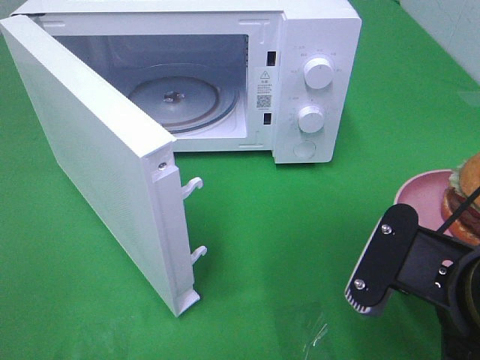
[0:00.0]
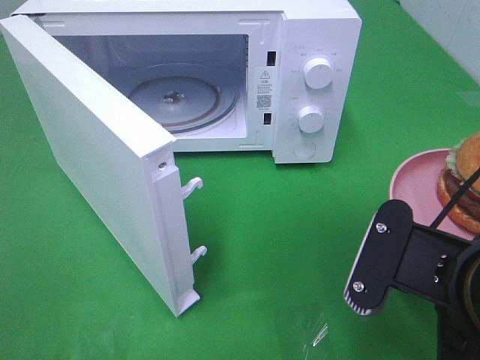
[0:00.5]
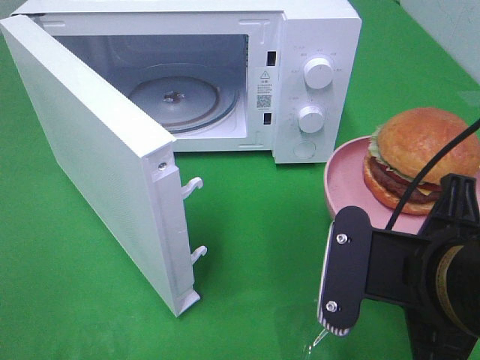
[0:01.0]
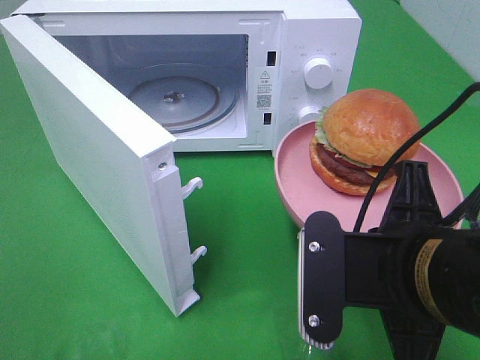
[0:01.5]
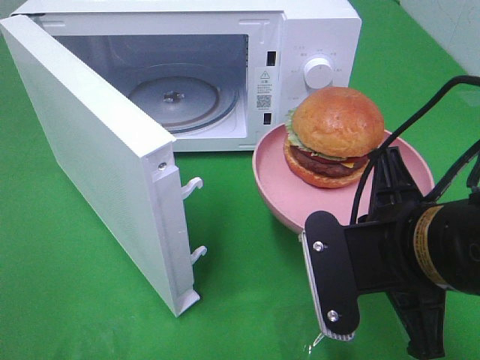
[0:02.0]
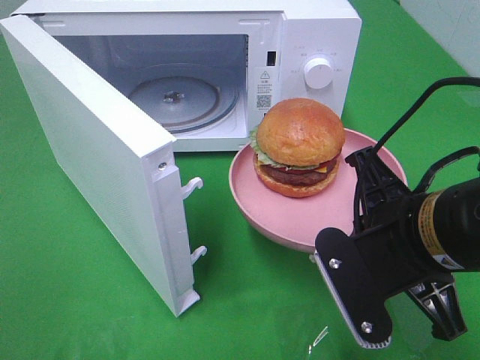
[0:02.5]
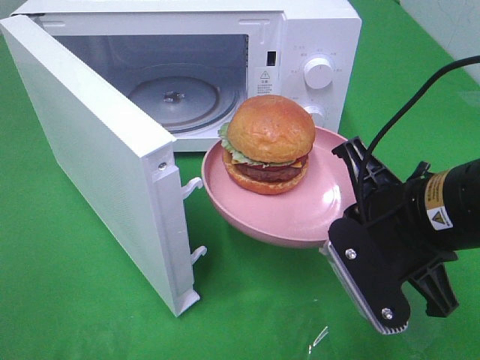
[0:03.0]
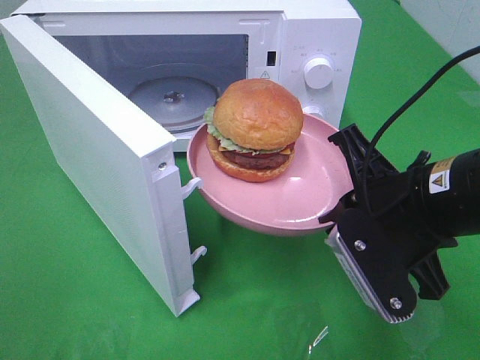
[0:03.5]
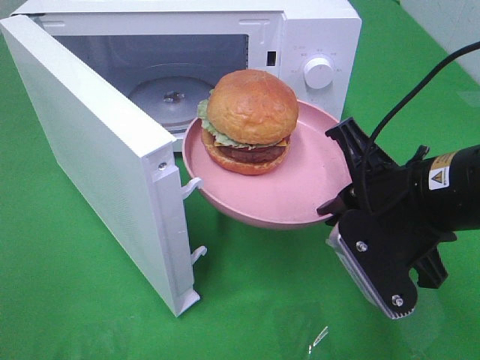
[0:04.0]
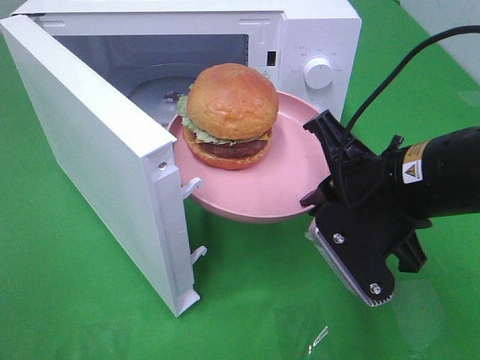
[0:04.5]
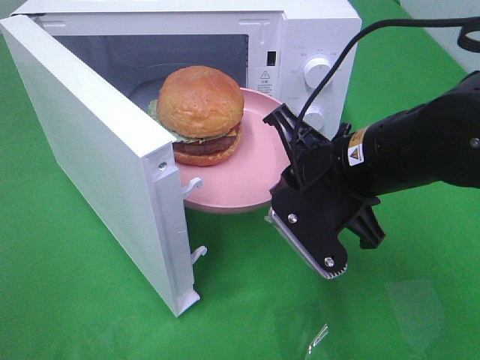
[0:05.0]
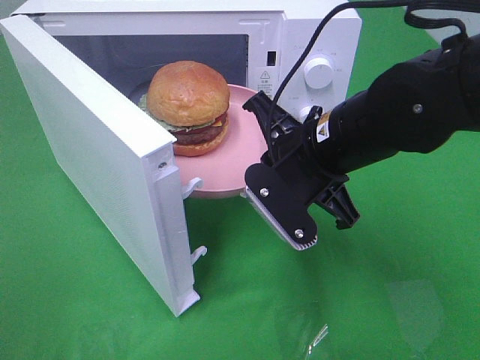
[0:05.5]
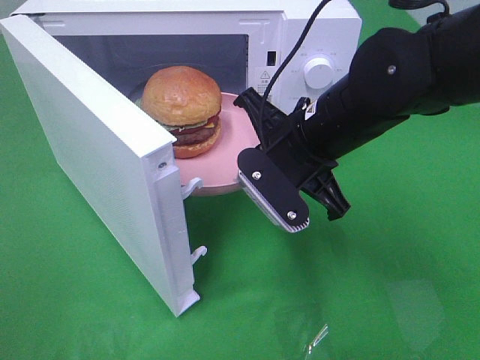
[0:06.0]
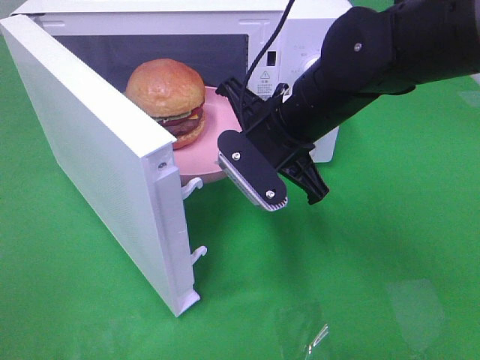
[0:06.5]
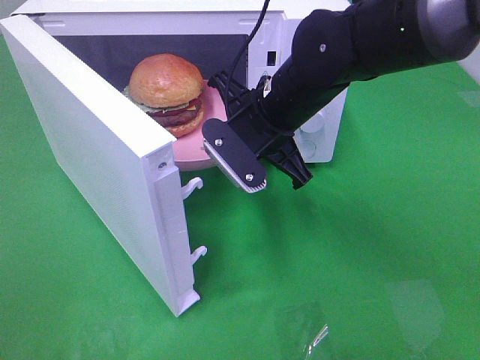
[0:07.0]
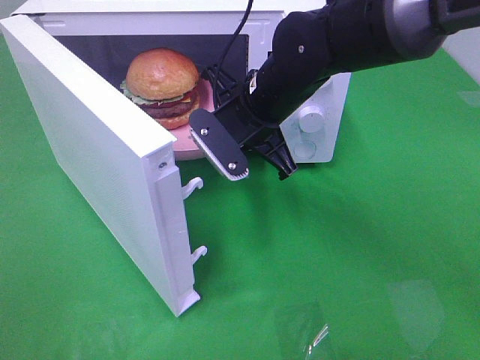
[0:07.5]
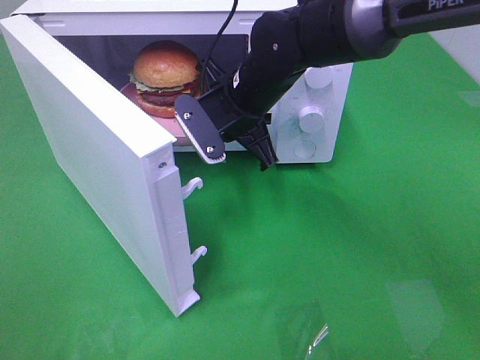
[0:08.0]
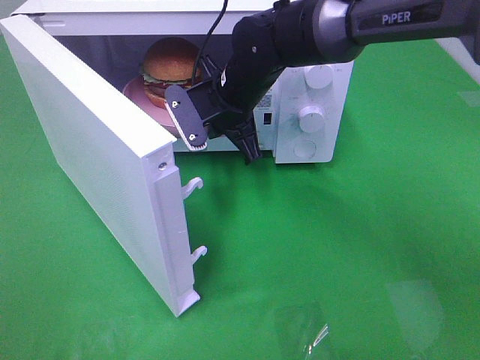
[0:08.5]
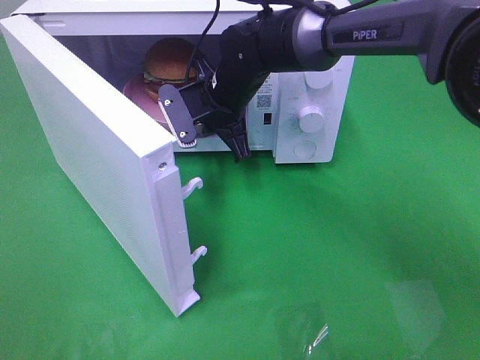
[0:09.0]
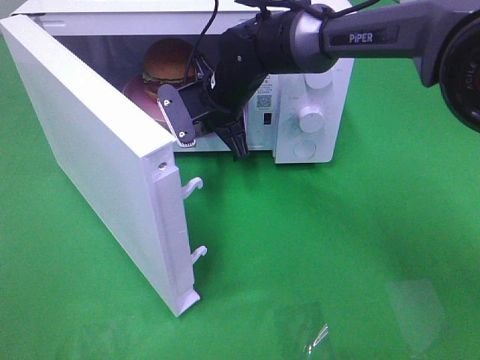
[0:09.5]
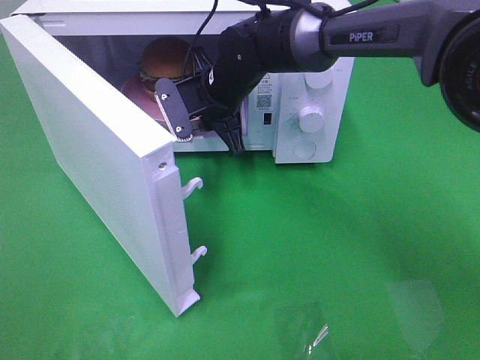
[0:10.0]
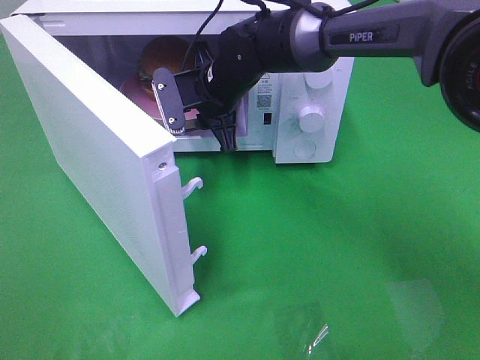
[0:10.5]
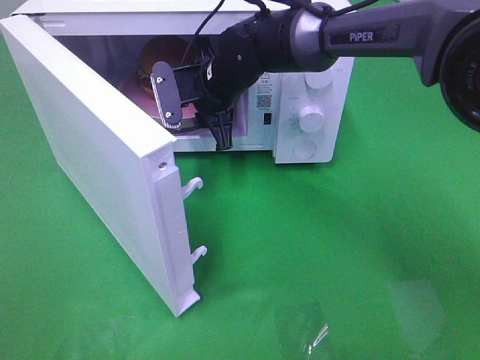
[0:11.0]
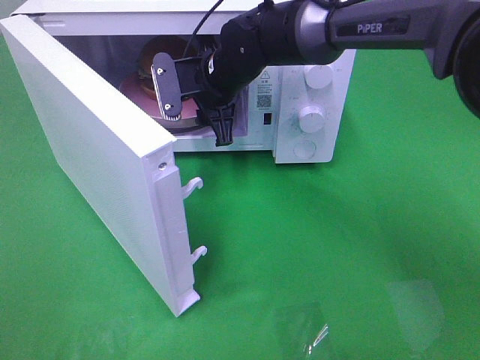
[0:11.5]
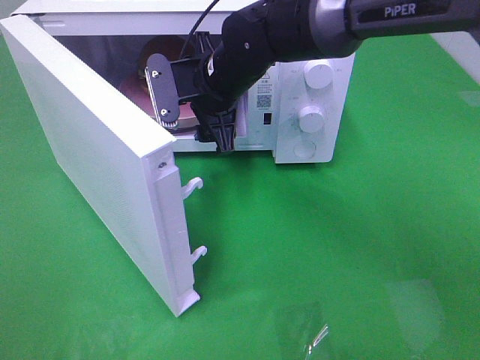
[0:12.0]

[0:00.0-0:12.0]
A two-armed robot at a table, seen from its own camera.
Task of the whole recording: Heat the burger.
Step, 0:00.0 to 0:10.5: Right hand: place the plate in the microwave.
0:02.0 to 0:04.0: The right gripper moves forward, about 5 cm.
0:04.0 to 0:06.0: The right gripper moves forward and to the left, some 10 cm.
0:06.0 to 0:08.0: The right gripper goes approximately 10 cm forward and to the left.
0:08.0 to 0:10.0: The right gripper ends up roughly 5 cm from where it was.
0:10.0 to 0:12.0: The right gripper opens.

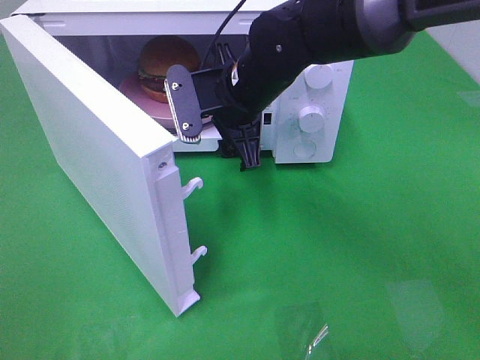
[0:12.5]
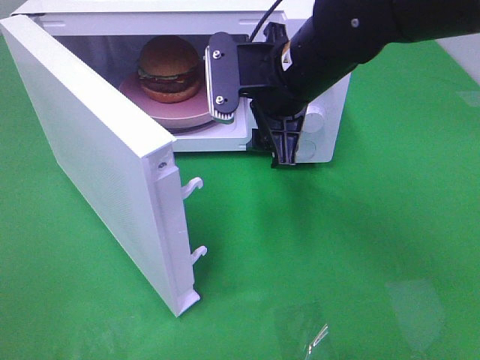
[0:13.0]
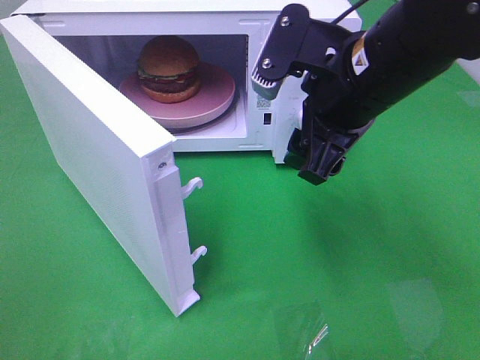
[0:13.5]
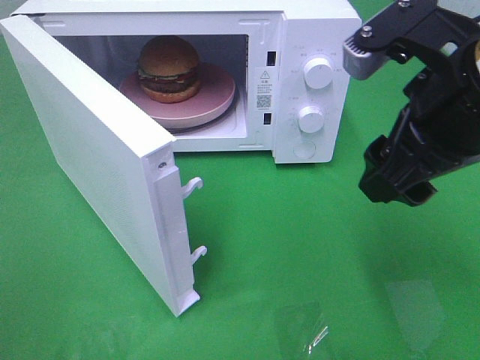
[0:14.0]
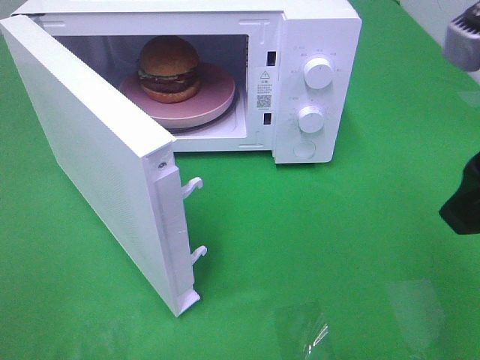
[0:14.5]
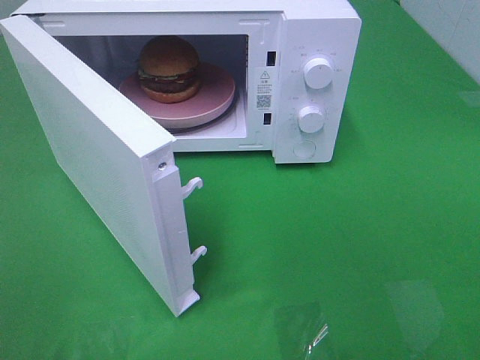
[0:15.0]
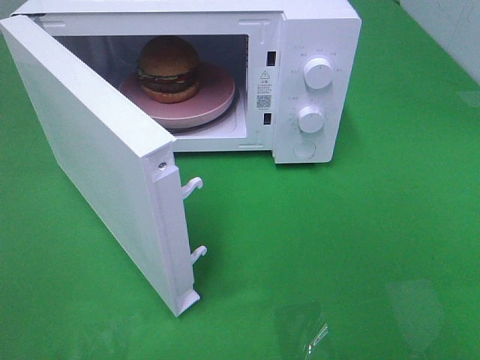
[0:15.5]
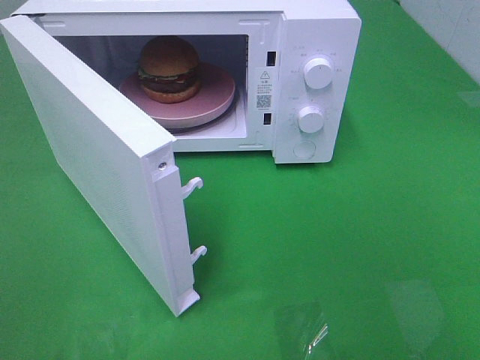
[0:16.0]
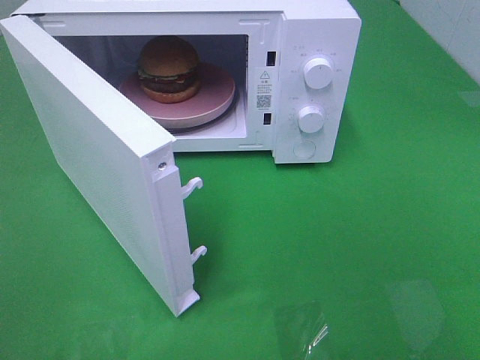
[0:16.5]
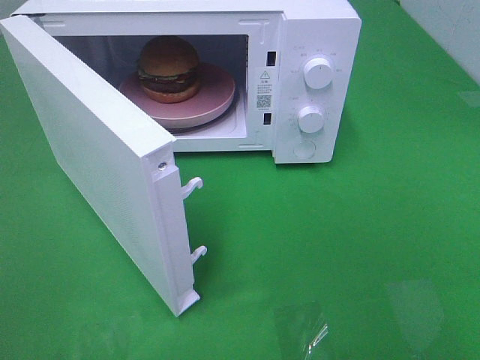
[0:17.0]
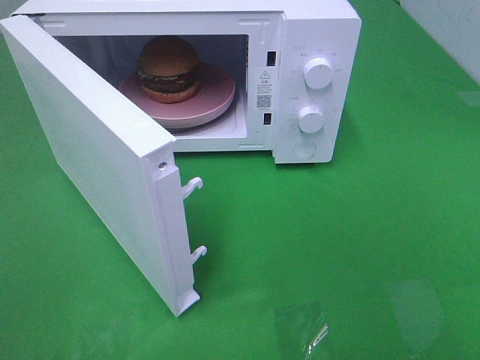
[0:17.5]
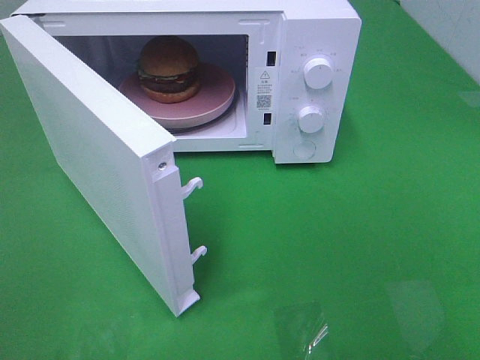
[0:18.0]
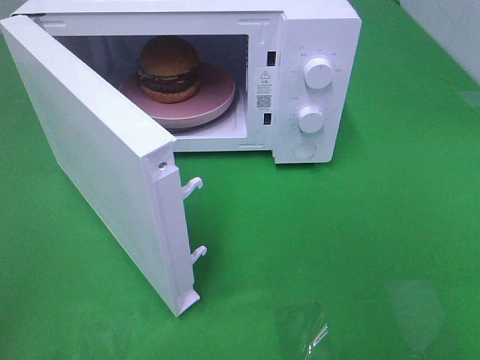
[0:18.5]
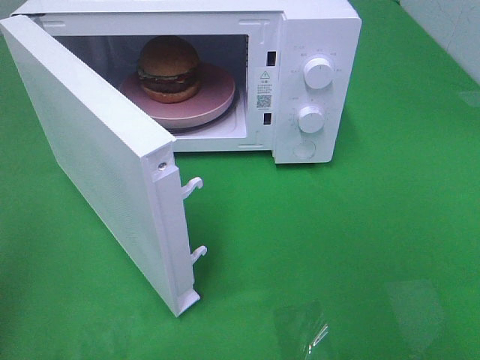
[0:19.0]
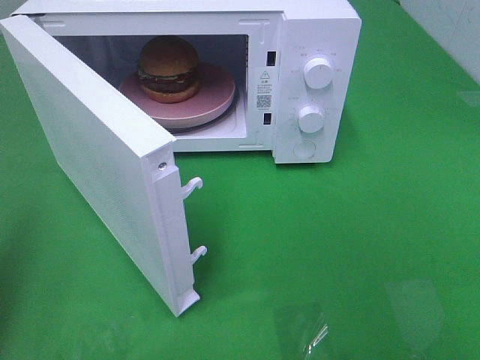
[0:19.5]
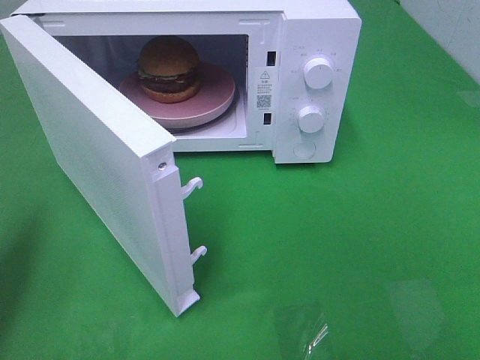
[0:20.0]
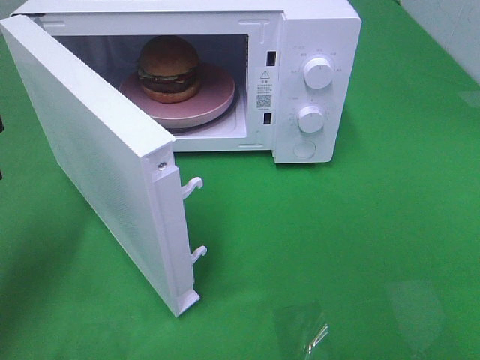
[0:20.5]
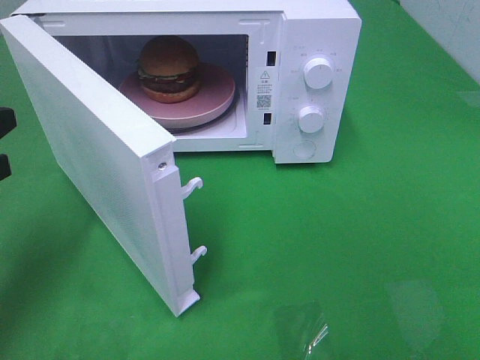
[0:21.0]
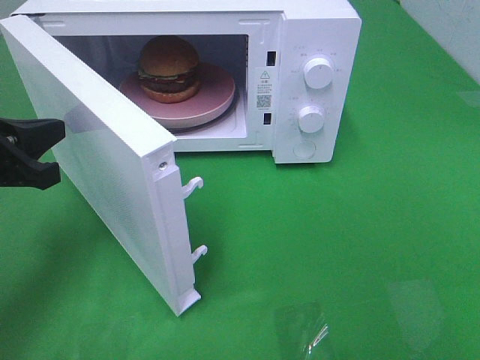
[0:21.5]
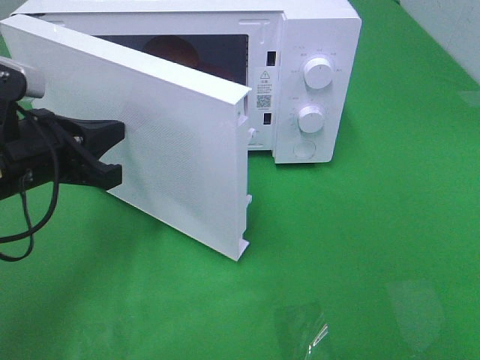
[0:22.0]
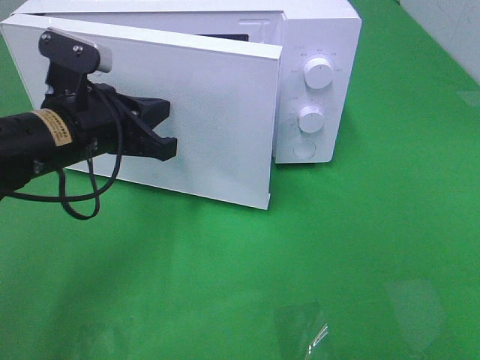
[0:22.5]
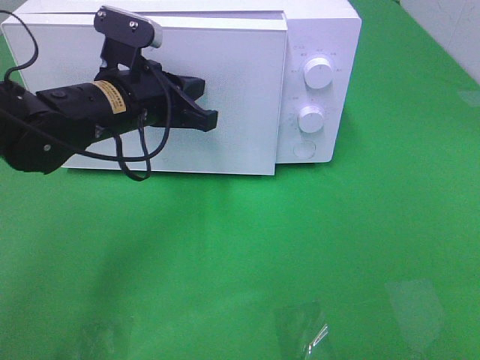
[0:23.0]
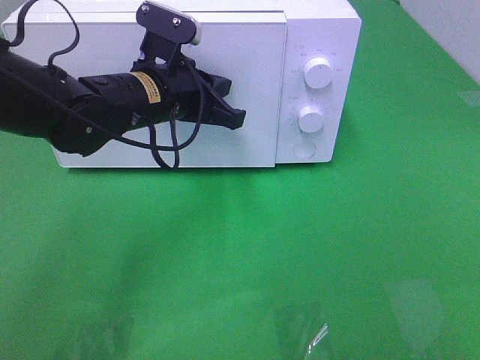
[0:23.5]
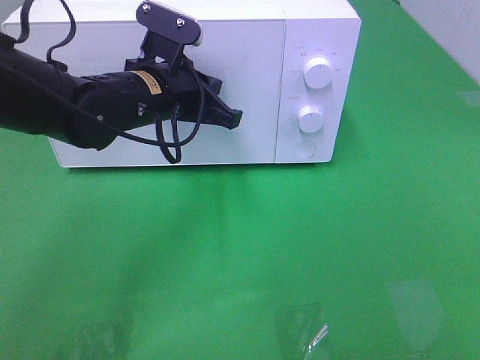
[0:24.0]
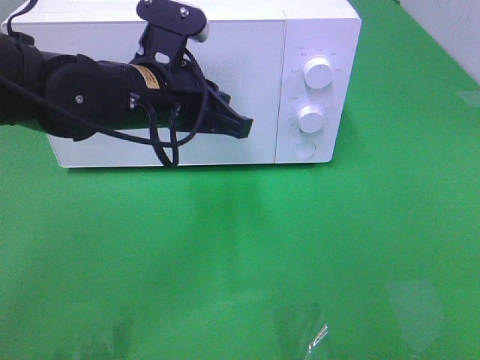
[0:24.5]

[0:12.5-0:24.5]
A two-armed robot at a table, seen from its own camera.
Task of the whole recording: Heat the burger.
Step, 0:12.5 to 0:24.0: Left hand: close the microwave door.
0:12.5 to 0:14.5: The right gripper goes about 30 cm backward, to the right and upward.
0:14.5 to 0:16.5: The right gripper travels backward and to the right by some 20 cm.
0:18.5 to 0:20.5: The left gripper moves forward and downward, about 25 cm.
0:20.5 to 0:22.5: The left gripper travels to the right and forward by about 15 cm.
0:22.5 to 0:24.5: The left gripper moves to the right, some 10 cm.

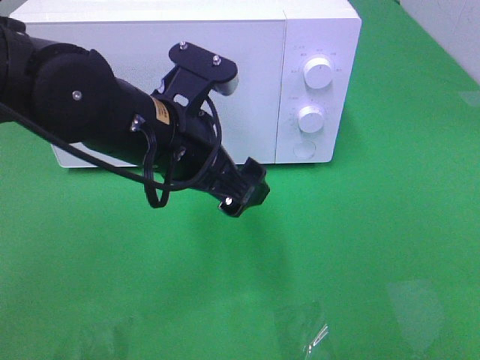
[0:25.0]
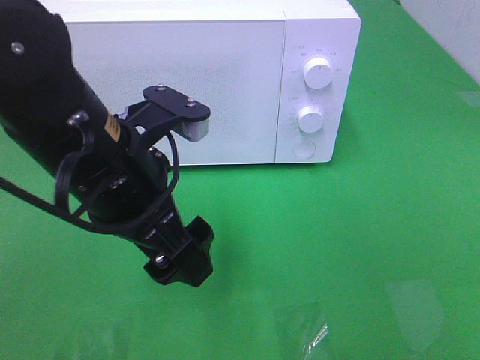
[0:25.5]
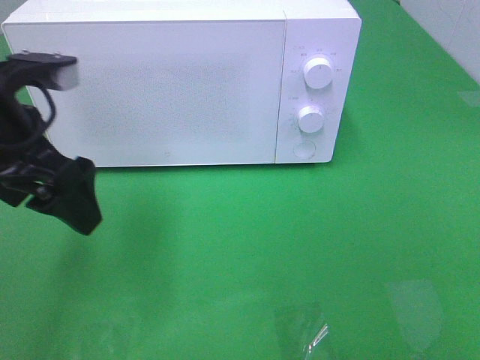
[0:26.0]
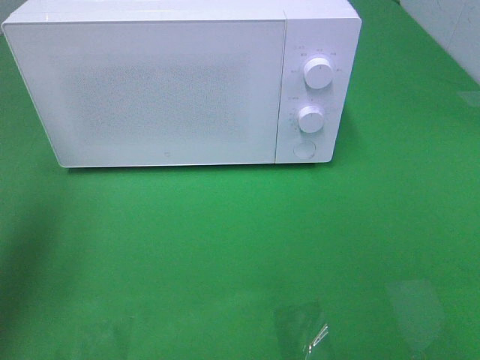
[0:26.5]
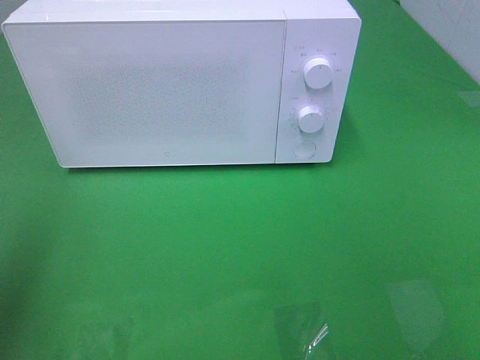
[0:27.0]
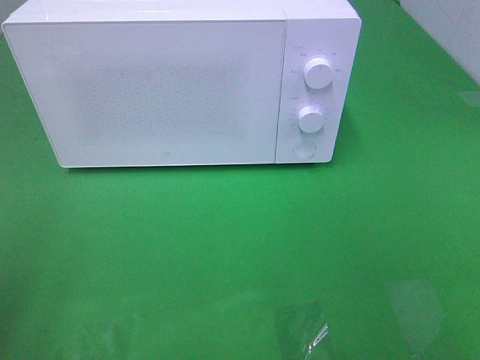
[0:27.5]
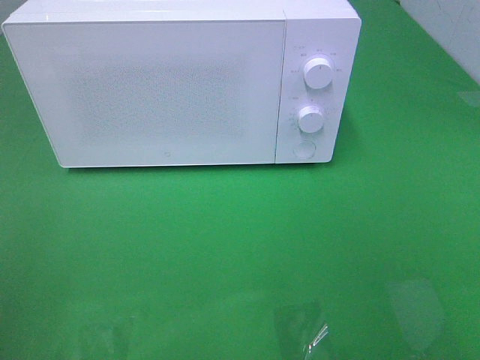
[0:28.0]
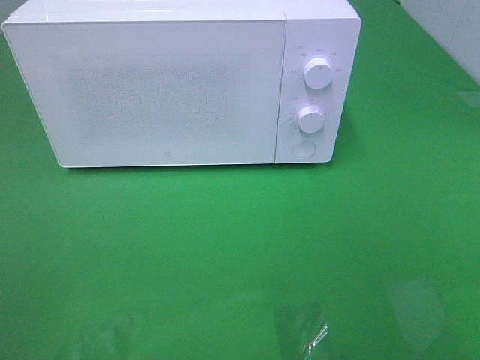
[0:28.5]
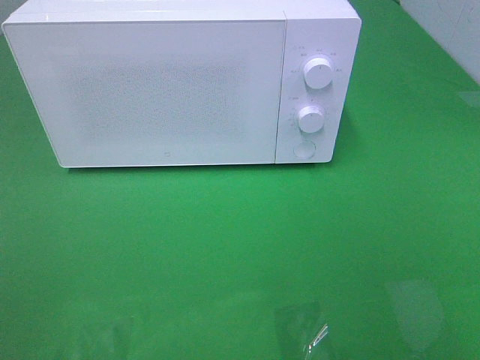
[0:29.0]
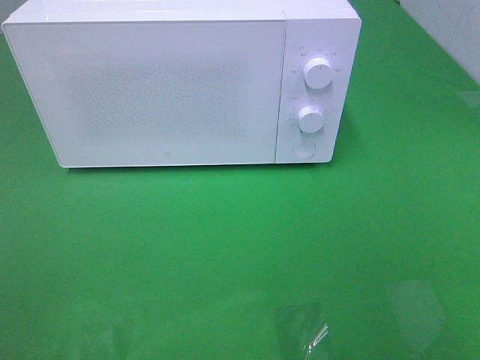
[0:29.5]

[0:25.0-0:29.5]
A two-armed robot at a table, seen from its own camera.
Task of the whole recording: Heat the burger.
0:25.0 to 0:27.0: The left gripper heads to the left, upward and backward, covering roughly 30 cm.
0:27.0 to 0:29.5: The left gripper moves backward, about 15 cm.
